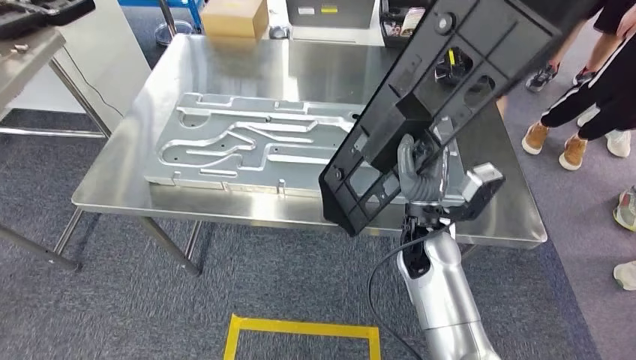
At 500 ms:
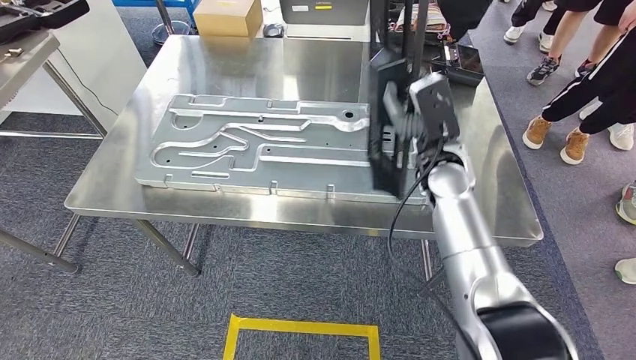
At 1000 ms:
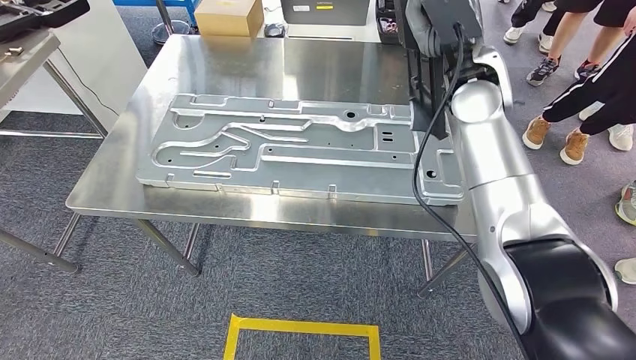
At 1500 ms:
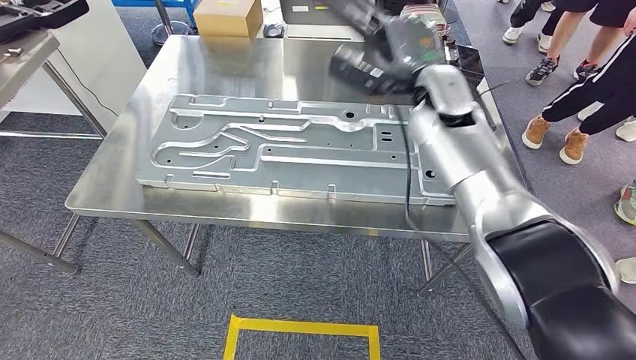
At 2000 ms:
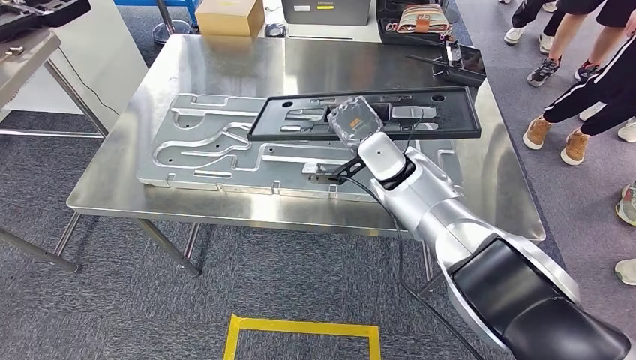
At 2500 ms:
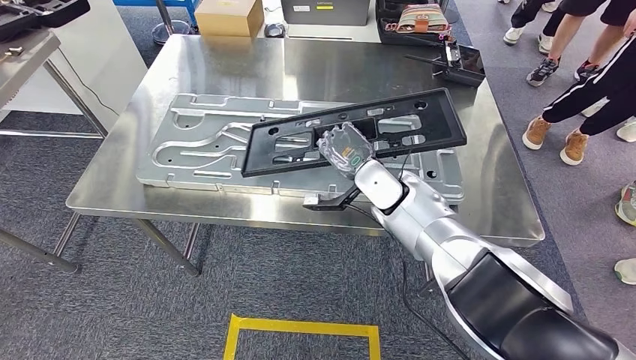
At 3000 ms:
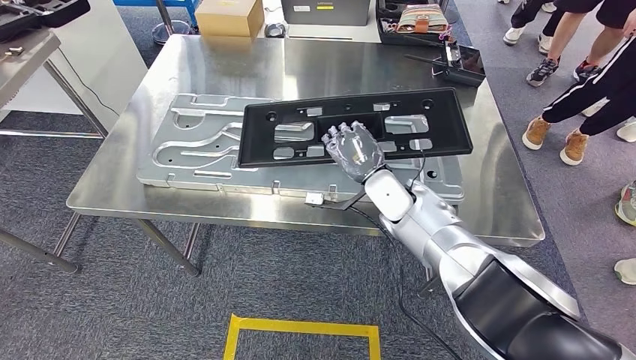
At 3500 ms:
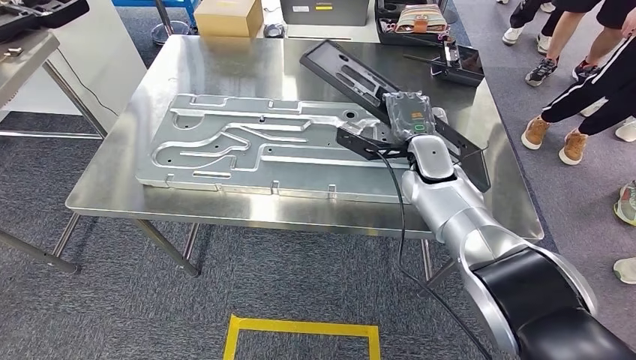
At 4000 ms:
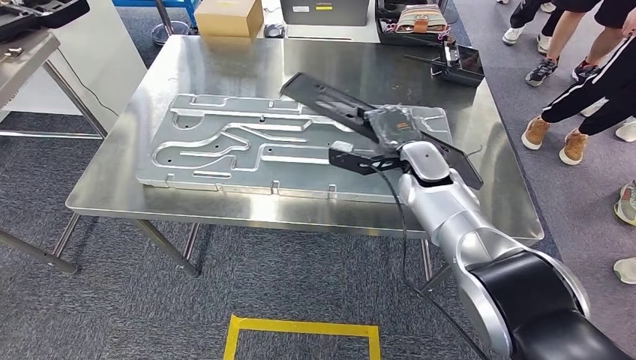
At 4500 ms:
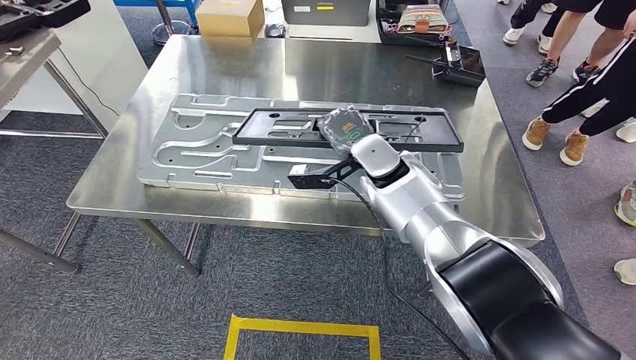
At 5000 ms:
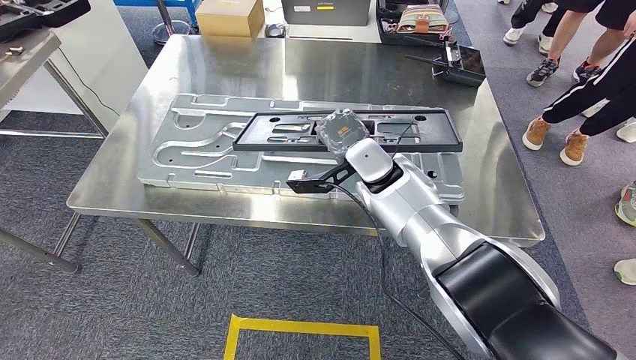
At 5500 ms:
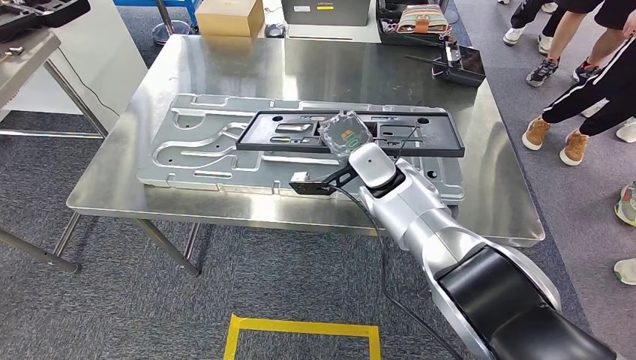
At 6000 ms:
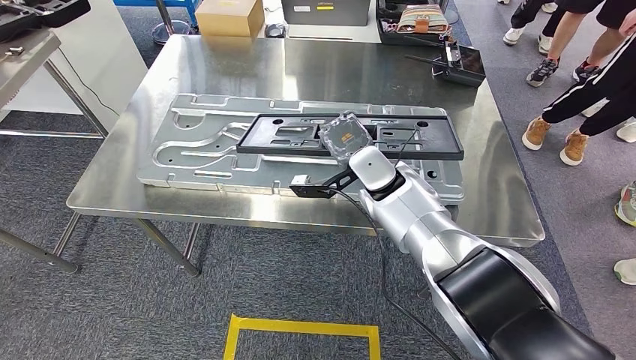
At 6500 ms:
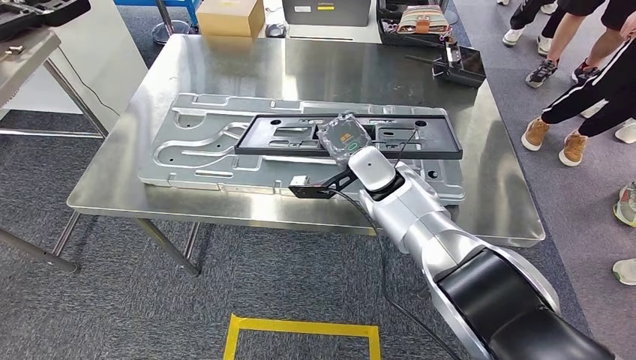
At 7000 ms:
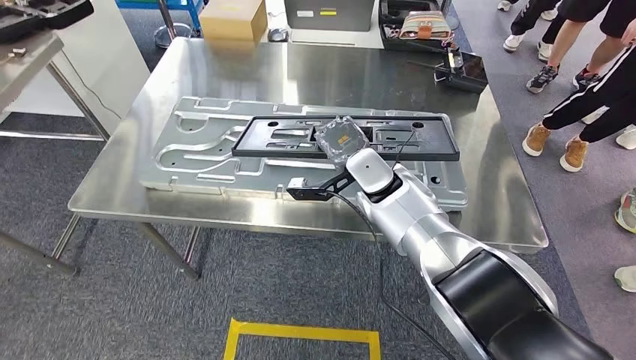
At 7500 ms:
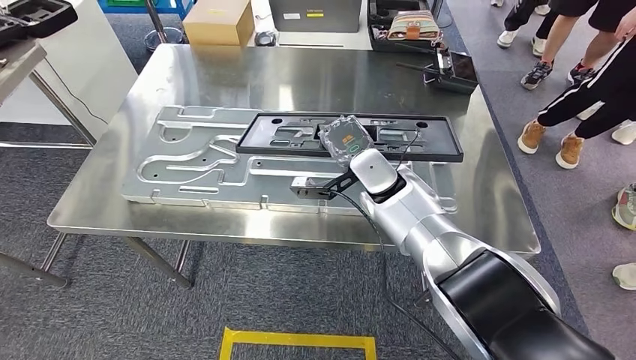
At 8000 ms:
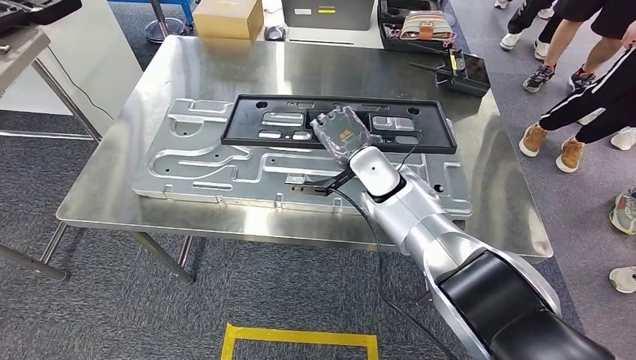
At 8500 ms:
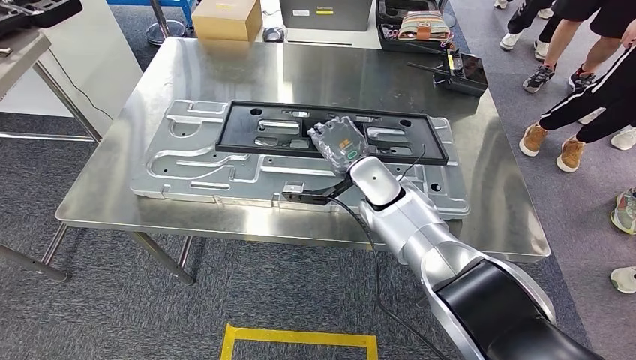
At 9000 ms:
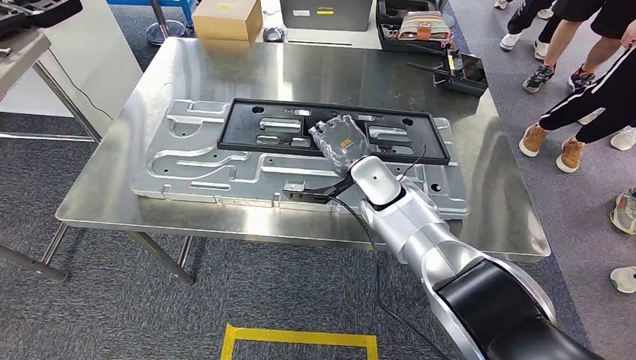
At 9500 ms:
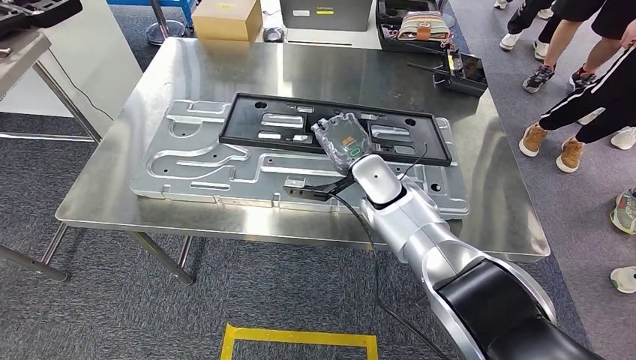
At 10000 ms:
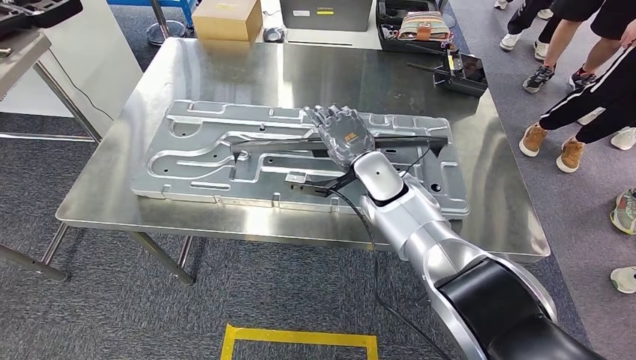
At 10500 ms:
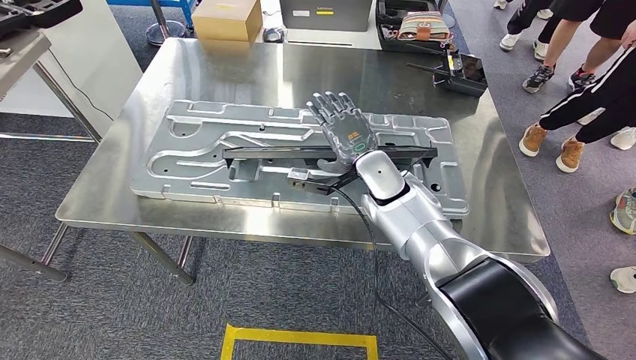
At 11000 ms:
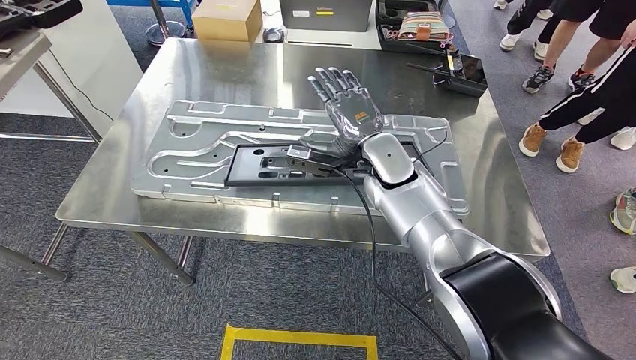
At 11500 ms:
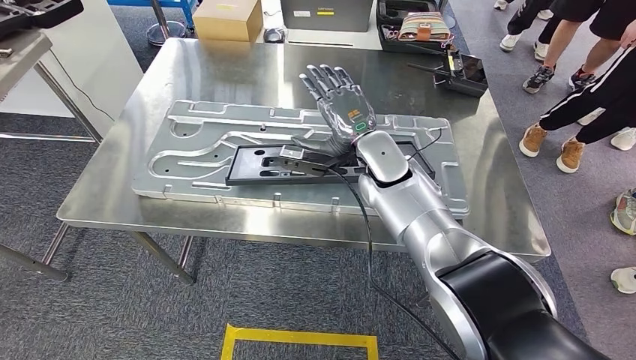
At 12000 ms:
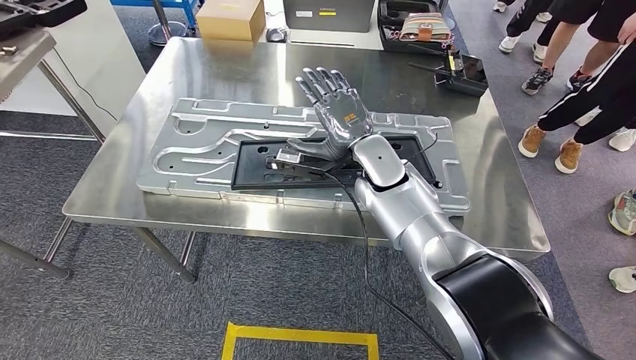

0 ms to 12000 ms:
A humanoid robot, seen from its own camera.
Step, 1000 ms to 11000 ms: Insert the large material into the corresponding slot on the workbench.
2000 ms to 4000 ms: The right hand is displaced to the right by approximately 5 cm.
4000 ms to 6000 ms: The right hand travels to the left by about 10 cm.
8000 ms to 12000 ms: The hands stay close to where they were, moving slightly.

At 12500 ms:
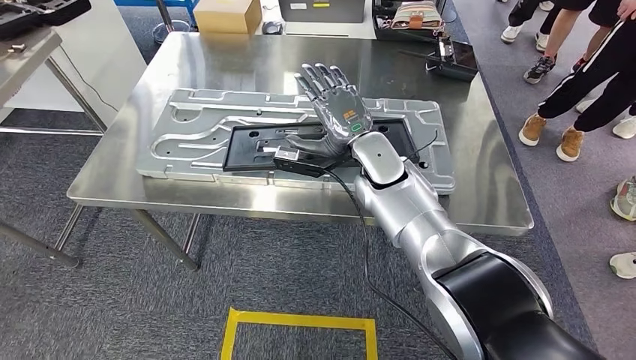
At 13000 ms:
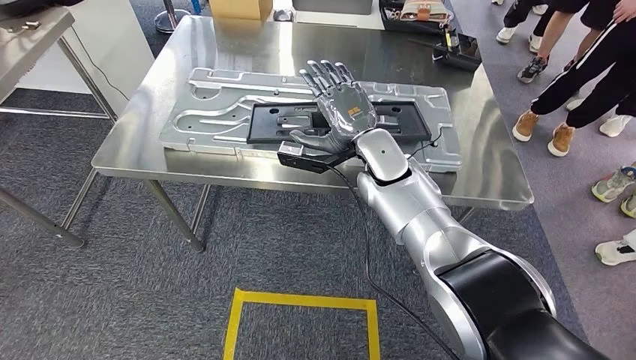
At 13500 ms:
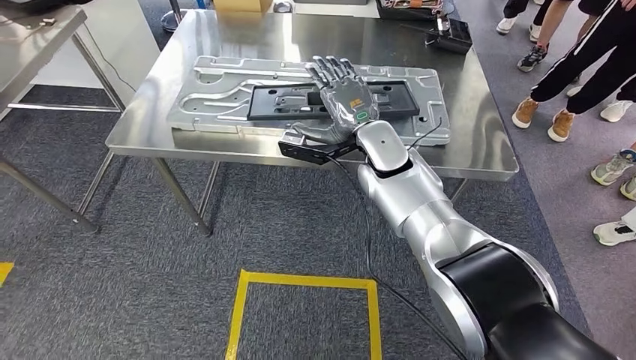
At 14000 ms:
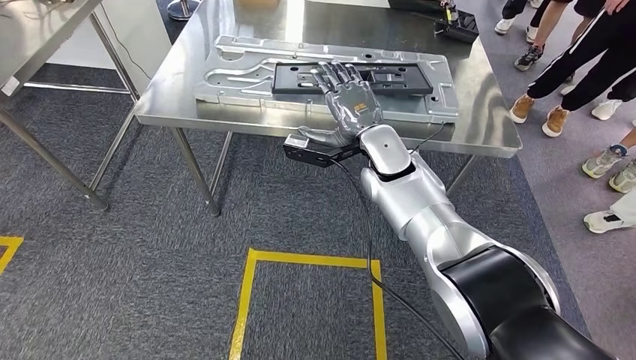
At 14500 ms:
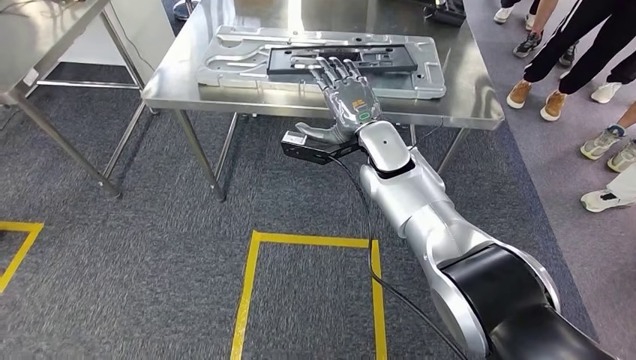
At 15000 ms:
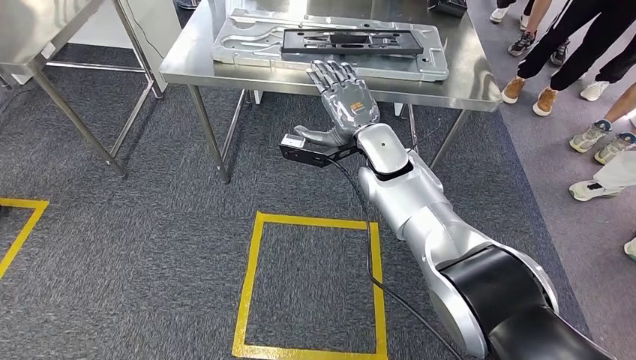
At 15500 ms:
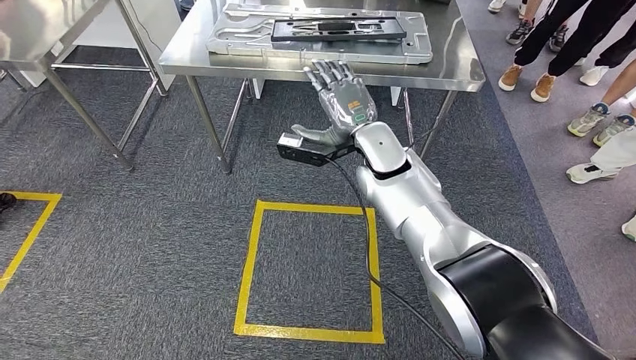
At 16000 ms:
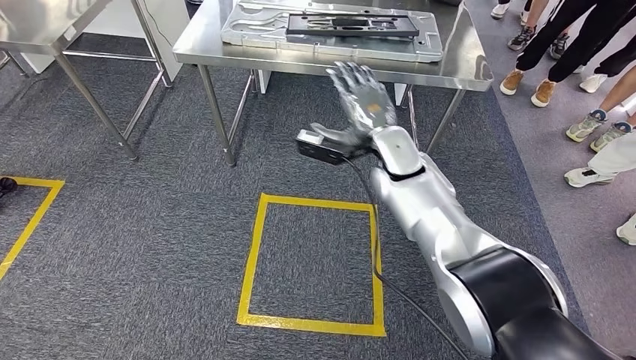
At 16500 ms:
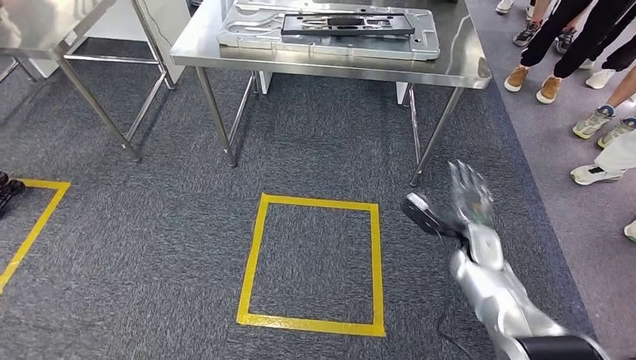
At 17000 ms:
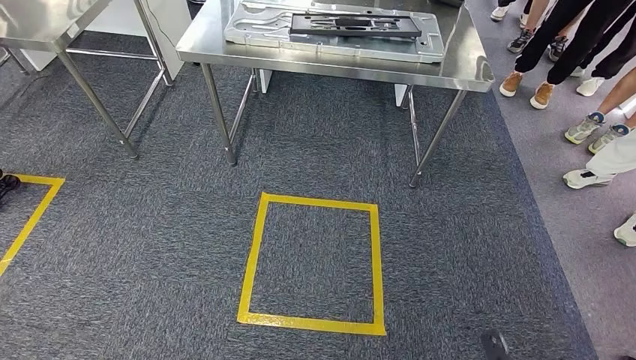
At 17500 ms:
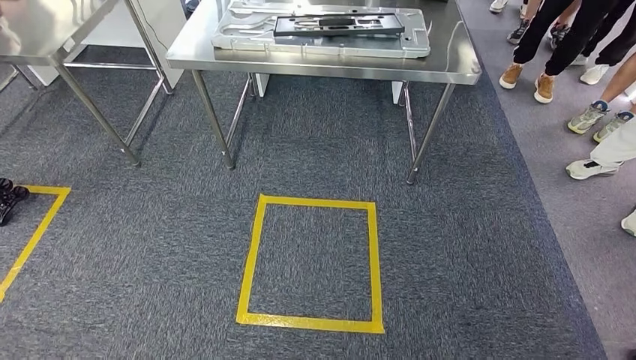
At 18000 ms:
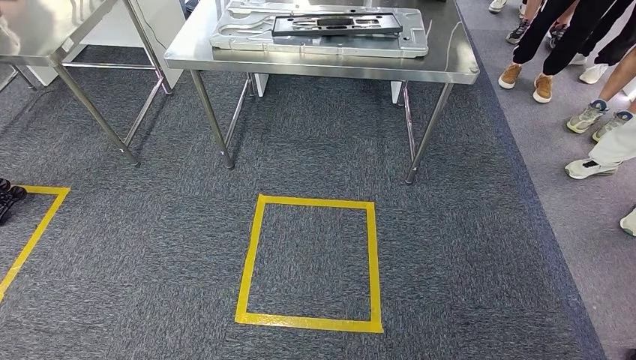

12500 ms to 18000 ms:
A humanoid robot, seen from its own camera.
Step, 12500 ms to 18000 ms: Move to the initial position of the shelf.
